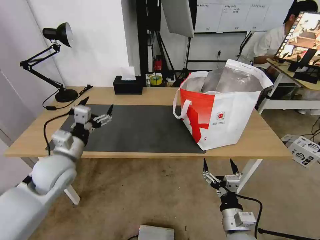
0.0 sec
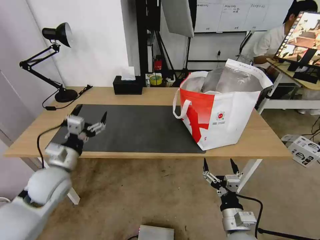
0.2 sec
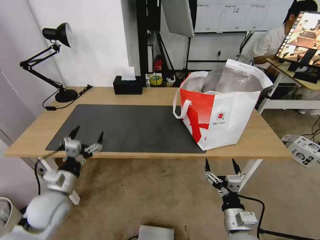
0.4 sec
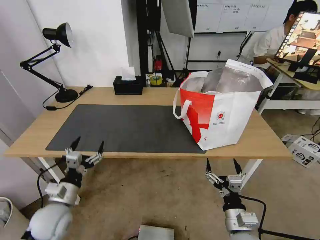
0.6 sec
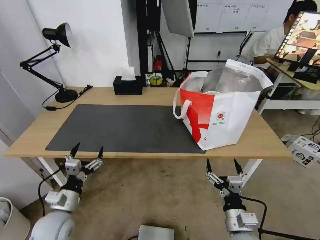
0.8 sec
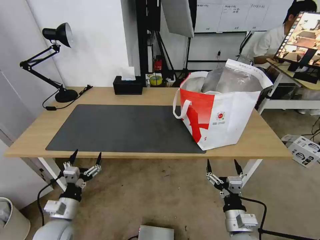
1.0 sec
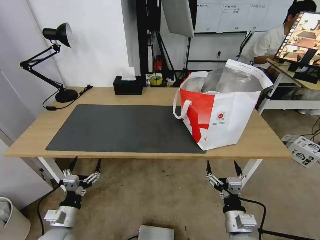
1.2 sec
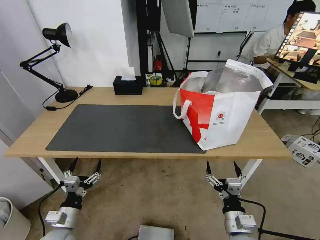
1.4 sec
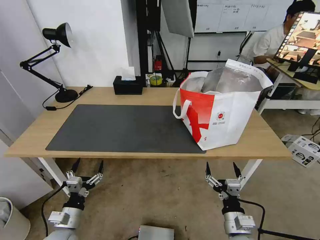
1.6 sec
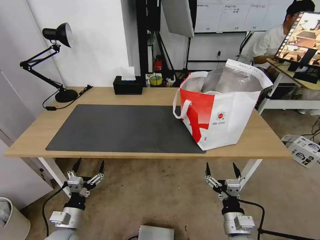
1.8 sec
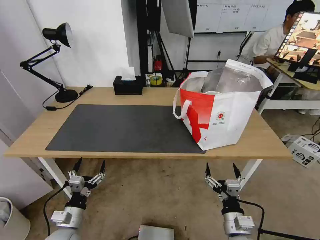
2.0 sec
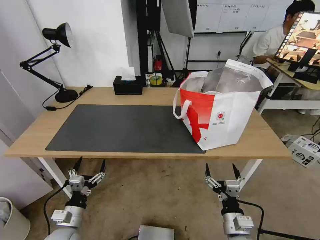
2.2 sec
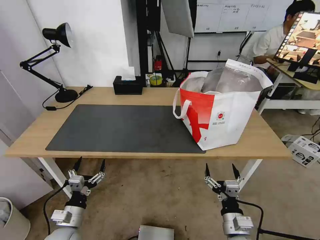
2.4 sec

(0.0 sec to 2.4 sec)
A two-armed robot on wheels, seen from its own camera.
Task of the whole recording: Pick up the trash from the table and place it into the takeout bag.
0.0 sec - 1.2 sec: The left gripper goes approximately 25 cm downward and backward.
1.2 sec - 2.4 sec: There are only small adjustments of the grippers.

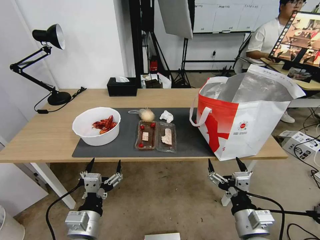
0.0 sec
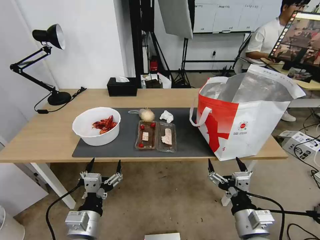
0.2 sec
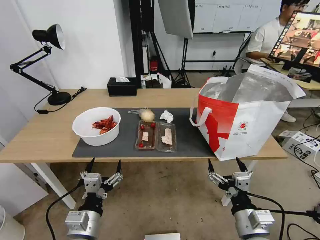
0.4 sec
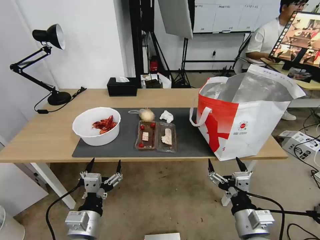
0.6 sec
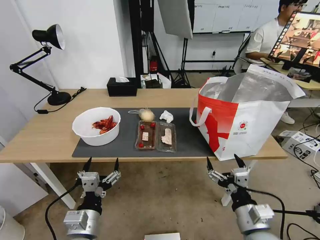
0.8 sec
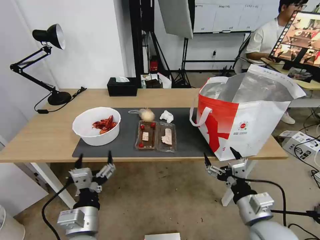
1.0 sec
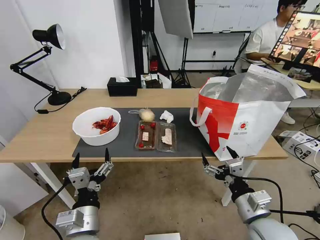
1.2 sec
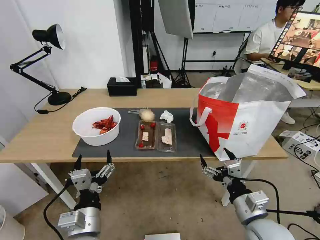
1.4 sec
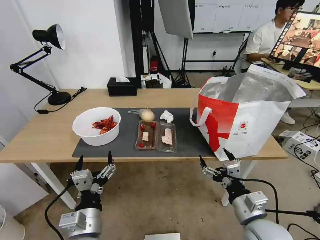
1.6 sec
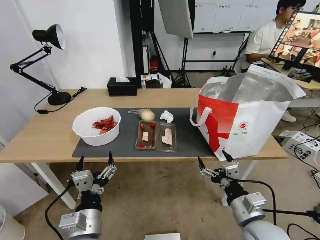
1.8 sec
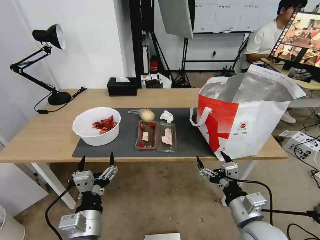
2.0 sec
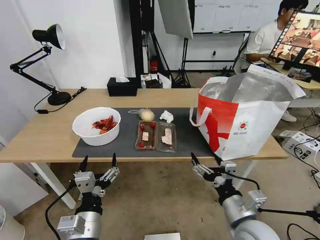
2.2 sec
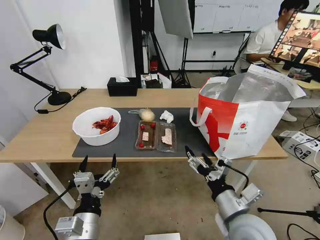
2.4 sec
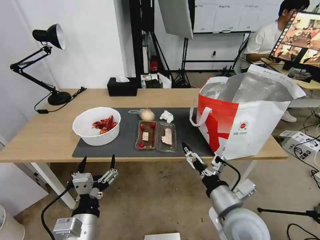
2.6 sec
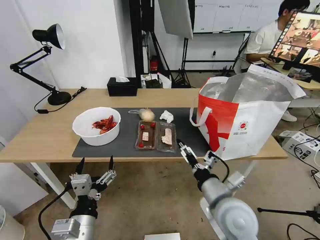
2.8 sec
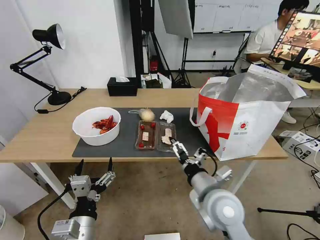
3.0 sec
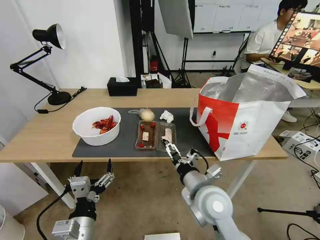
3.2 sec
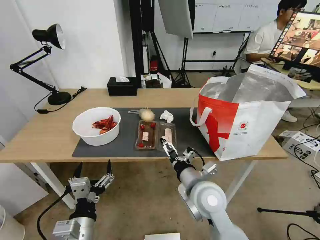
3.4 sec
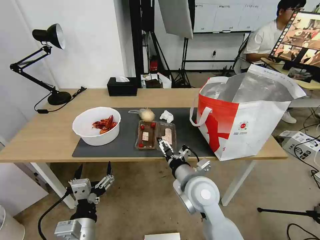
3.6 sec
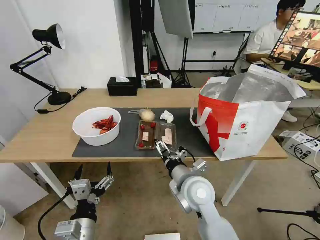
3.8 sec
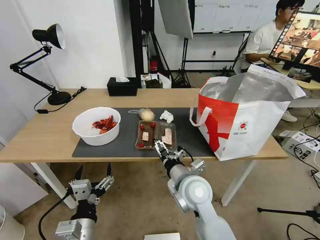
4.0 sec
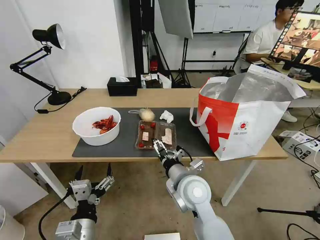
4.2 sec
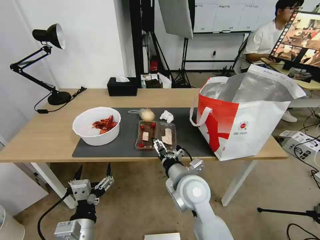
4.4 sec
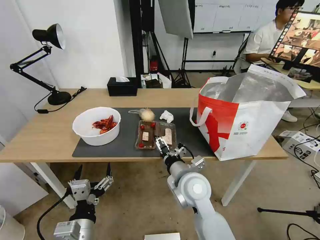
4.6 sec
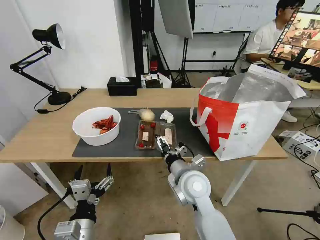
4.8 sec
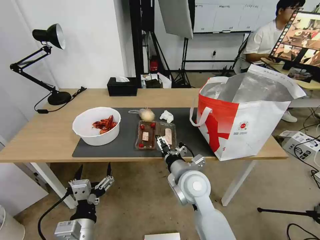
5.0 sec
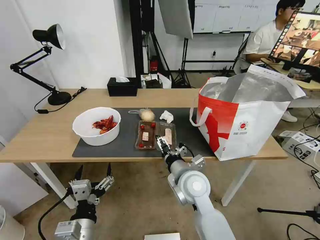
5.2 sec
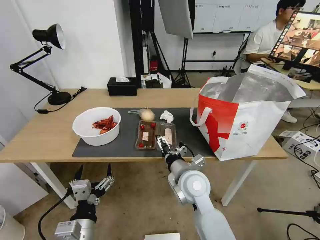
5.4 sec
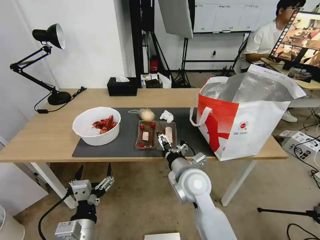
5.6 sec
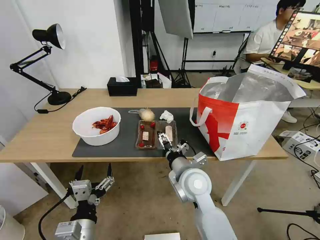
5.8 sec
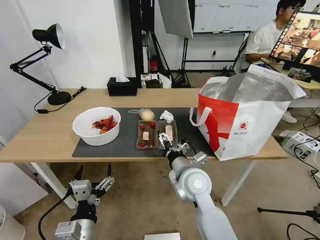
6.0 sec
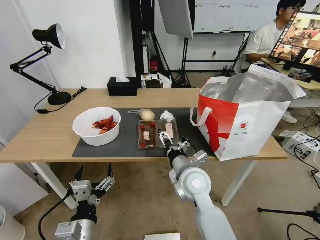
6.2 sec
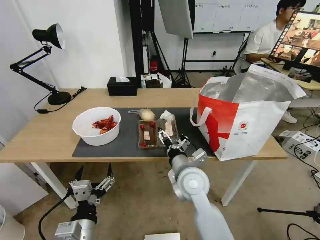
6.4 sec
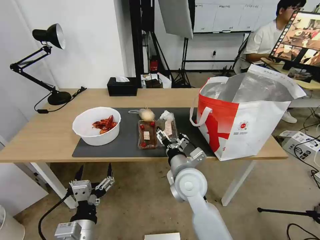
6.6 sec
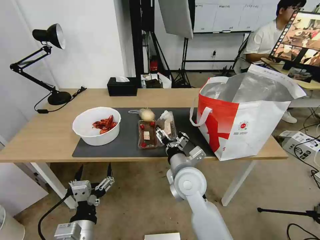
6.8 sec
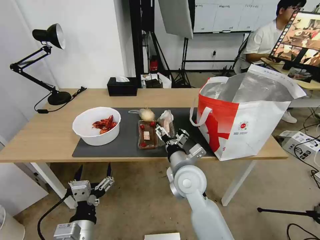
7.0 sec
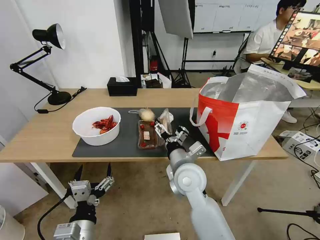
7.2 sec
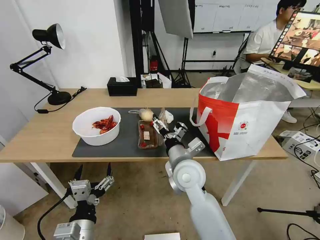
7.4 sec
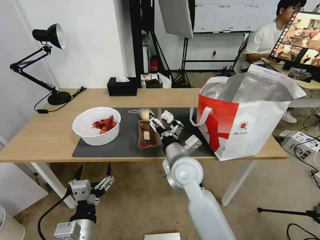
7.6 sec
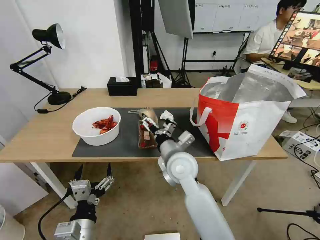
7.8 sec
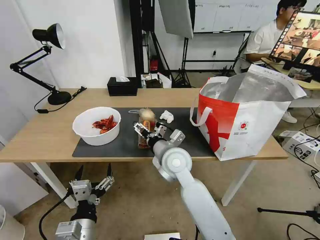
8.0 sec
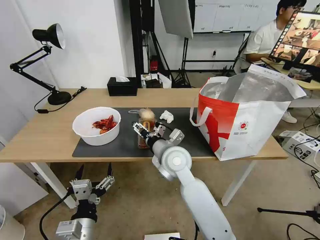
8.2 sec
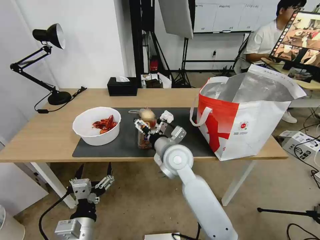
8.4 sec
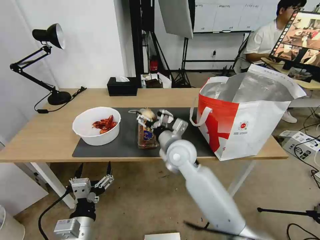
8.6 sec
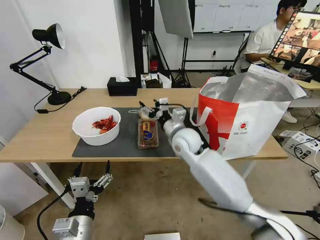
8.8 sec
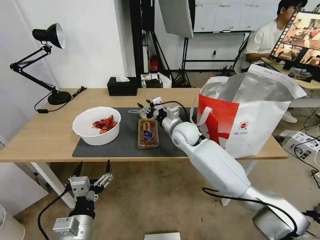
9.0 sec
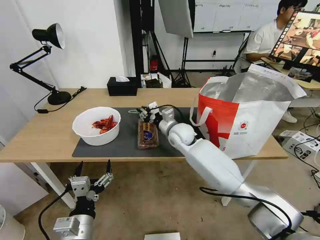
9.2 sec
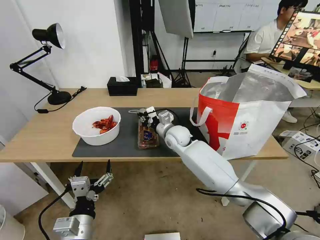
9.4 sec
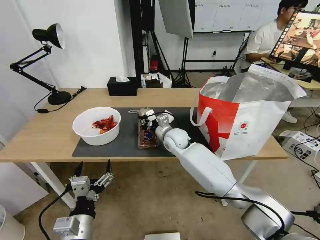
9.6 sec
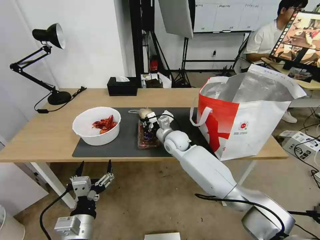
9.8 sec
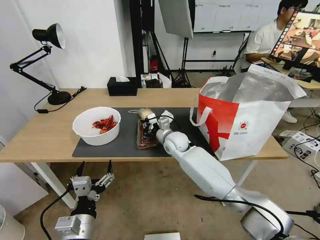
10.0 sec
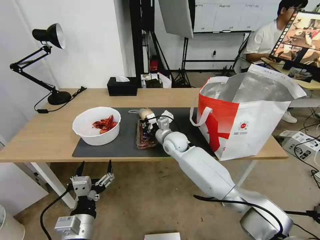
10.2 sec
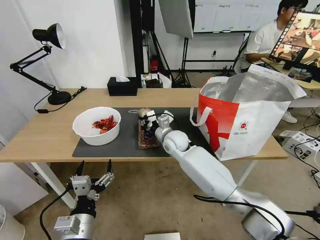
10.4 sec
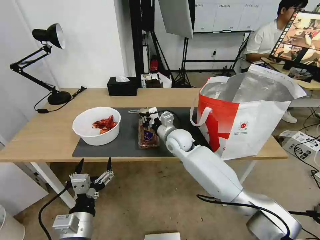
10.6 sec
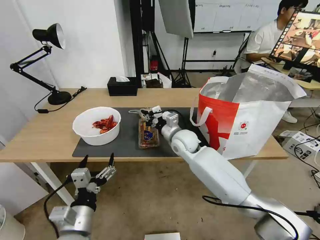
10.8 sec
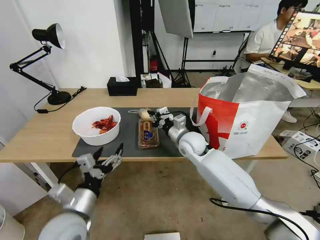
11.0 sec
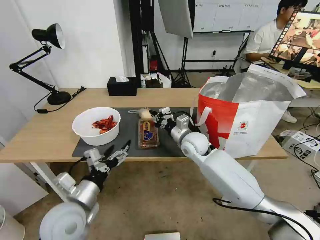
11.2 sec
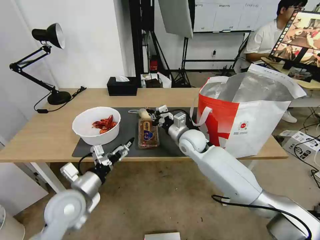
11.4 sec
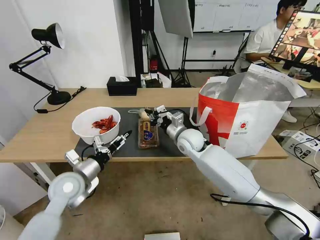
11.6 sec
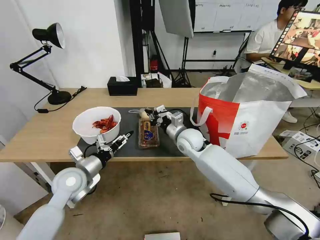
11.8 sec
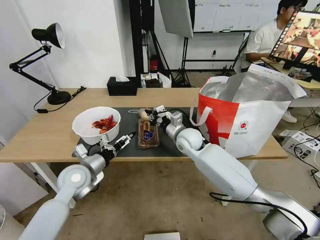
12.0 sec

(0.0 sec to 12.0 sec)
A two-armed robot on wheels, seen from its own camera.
Task of the whole recording: Pick up the trash from the table and place it into the takeout bag.
1.6 sec - 3.0 sec: The right gripper moves to the left and forward, some 10 cm.
3.0 sec - 4.4 sec: The right gripper is displaced to the left and forward by roughly 10 cm.
4.4 sec - 6.0 sec: The grippers make only small movements.
7.6 sec - 9.0 sec: The right gripper moves forward, about 15 cm, and closes up.
9.0 sec - 10.4 sec: The right gripper ends up some 5 cm from where it was, and closes its fingers.
10.4 sec - 12.0 sec: The left gripper shifts roughly 20 cm forward.

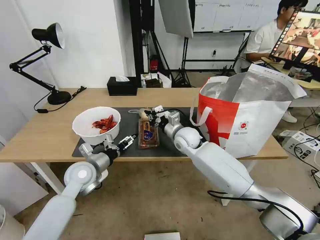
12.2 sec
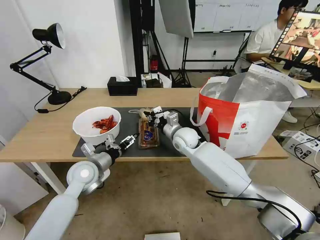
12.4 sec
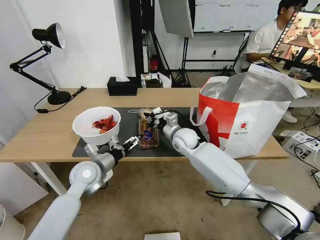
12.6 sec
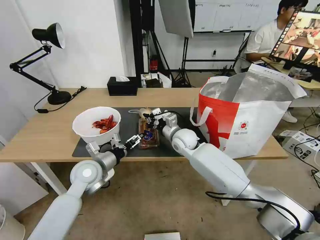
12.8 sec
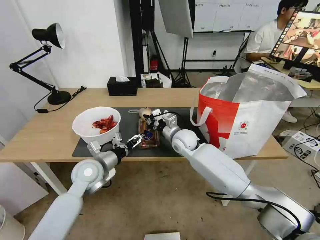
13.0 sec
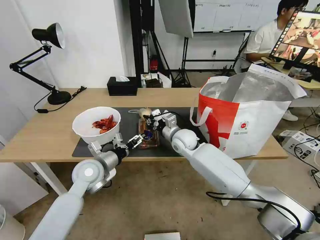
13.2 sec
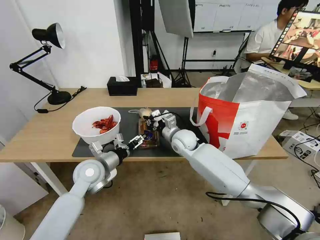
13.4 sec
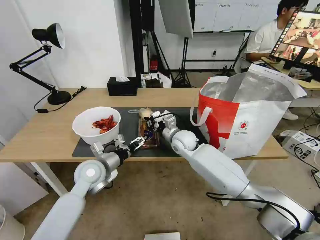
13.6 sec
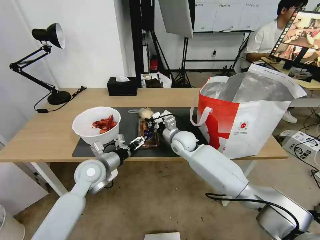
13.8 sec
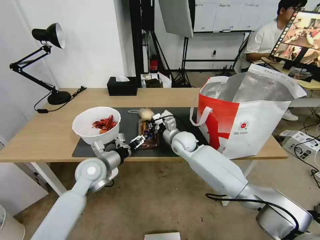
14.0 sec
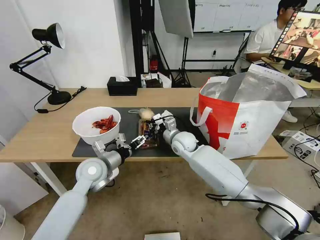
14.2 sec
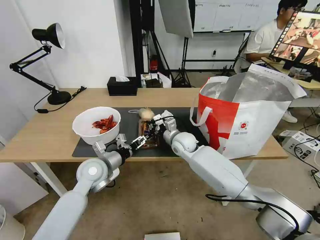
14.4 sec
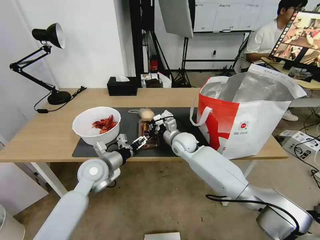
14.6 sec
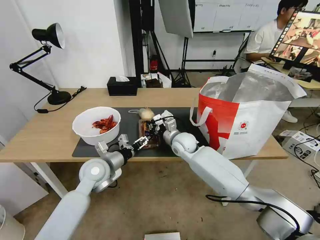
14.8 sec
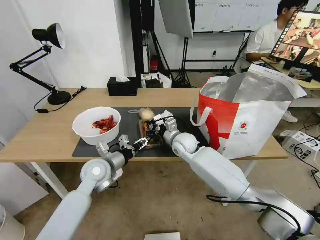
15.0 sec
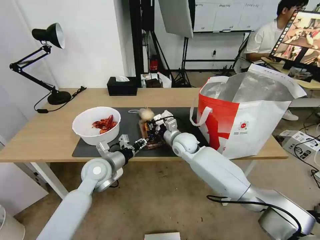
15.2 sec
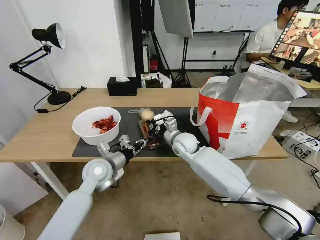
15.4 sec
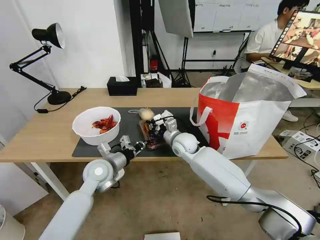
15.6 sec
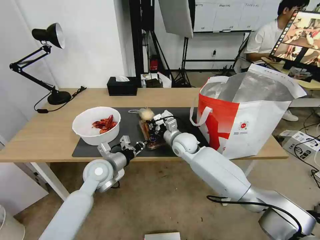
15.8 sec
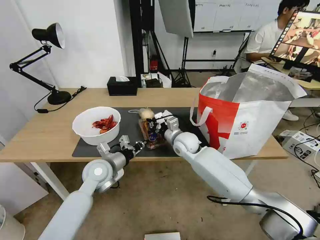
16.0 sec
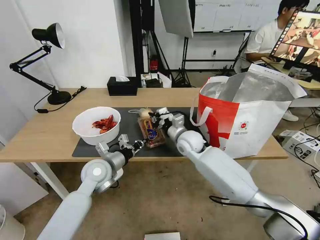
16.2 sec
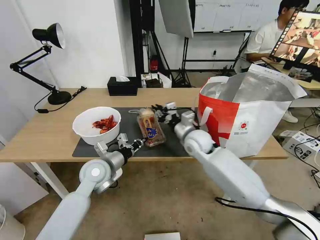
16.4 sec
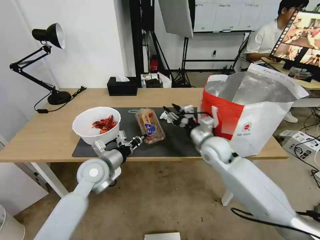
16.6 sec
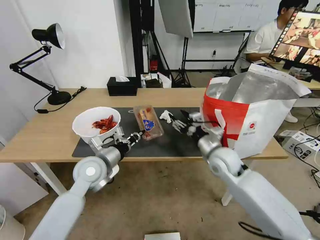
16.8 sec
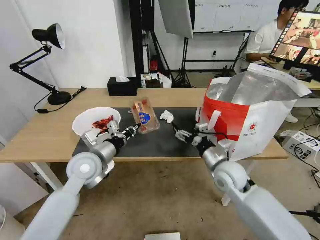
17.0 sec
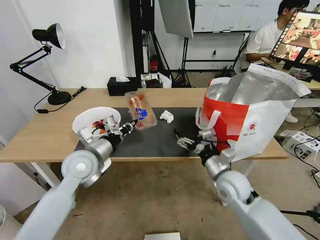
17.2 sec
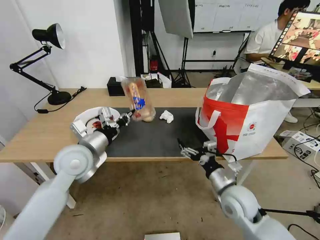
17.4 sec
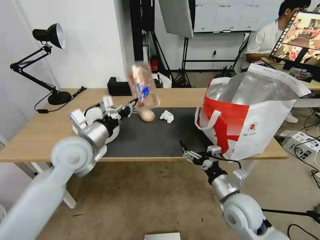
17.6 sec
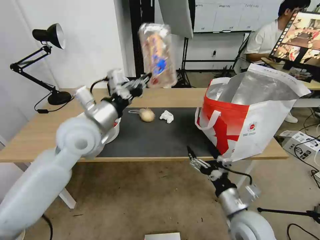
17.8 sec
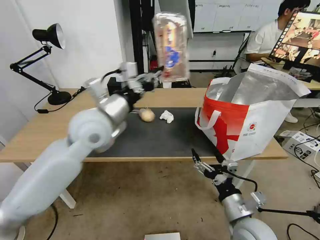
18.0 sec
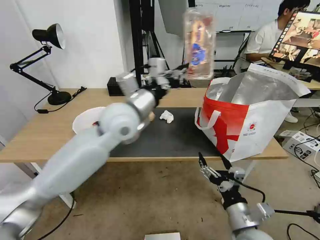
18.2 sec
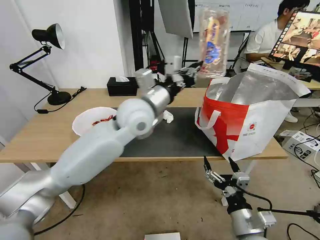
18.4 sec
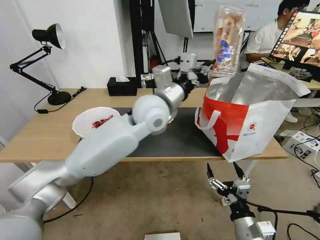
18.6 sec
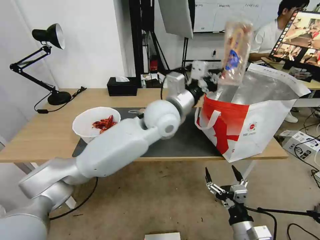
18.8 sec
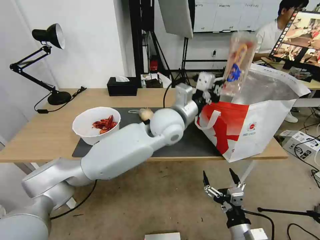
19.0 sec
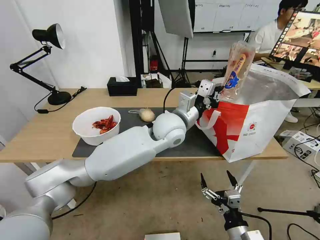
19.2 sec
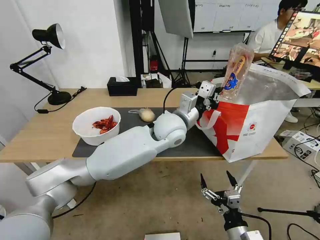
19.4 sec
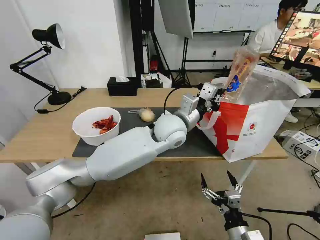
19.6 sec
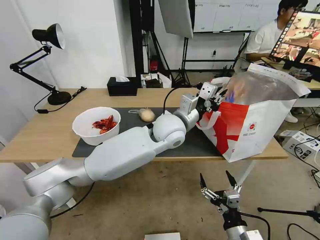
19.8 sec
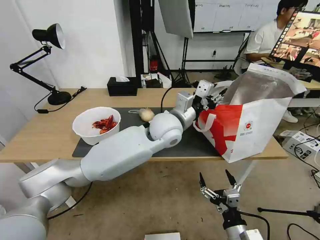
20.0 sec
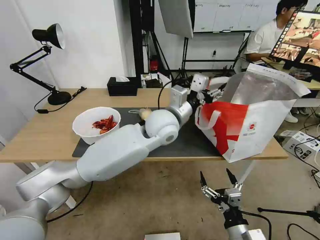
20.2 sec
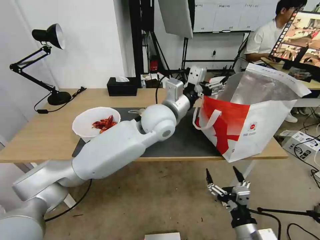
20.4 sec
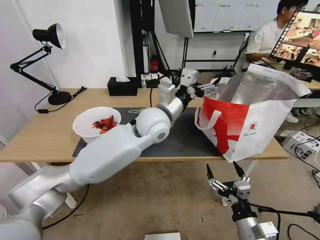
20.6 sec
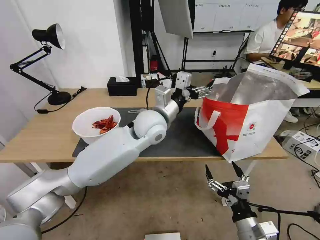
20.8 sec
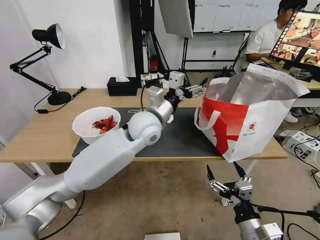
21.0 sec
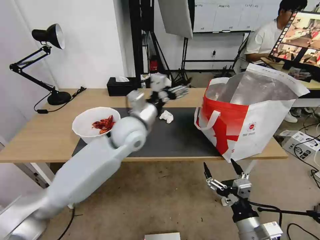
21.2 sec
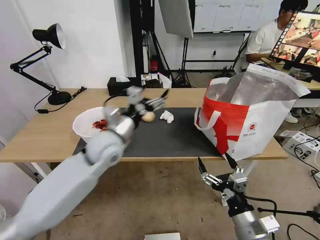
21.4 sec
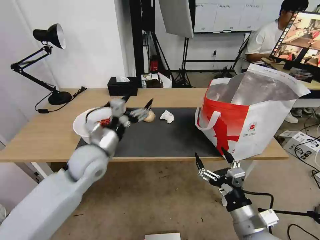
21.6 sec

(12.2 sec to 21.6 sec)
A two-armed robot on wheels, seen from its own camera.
Task of the whole recording: Pick up the trash from the table and place it into the takeout bag.
12.2 sec - 13.8 sec: There are only small adjustments of the grippers.
13.8 sec - 15.4 sec: The left gripper closes its fingers.
15.4 sec - 17.0 sec: The right gripper goes some 20 cm backward and to the right, and opens its fingers; the left gripper heads upward, covering approximately 5 cm.
17.0 sec - 18.4 sec: The right gripper heads backward, covering approximately 20 cm. Meanwhile the left gripper goes approximately 20 cm to the right and upward.
18.4 sec - 20.0 sec: The left gripper travels to the right and downward by roughly 10 cm, and opens up.
20.0 sec - 21.6 sec: The right gripper travels upward by approximately 10 cm; the left gripper goes approximately 20 cm to the left, and opens.
